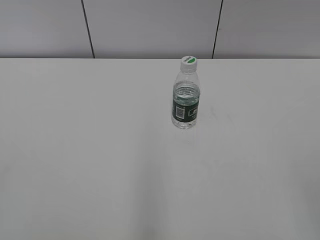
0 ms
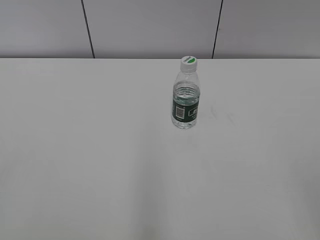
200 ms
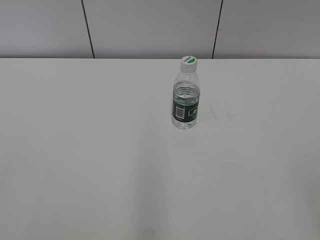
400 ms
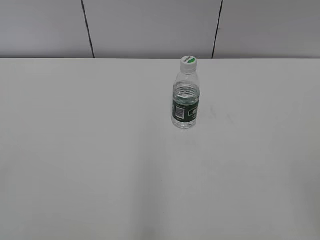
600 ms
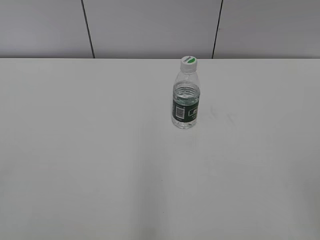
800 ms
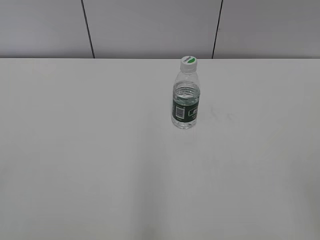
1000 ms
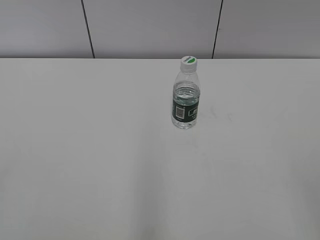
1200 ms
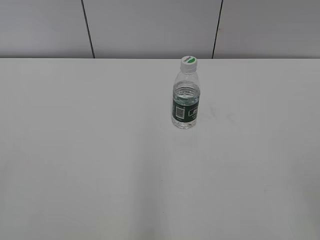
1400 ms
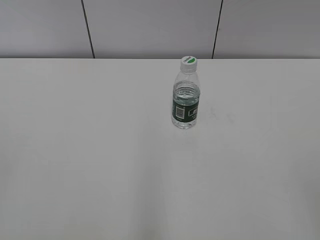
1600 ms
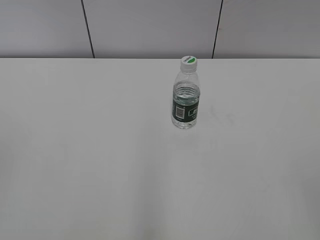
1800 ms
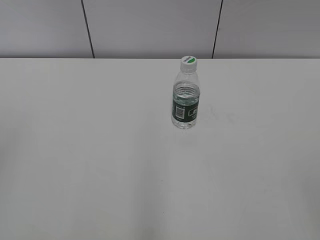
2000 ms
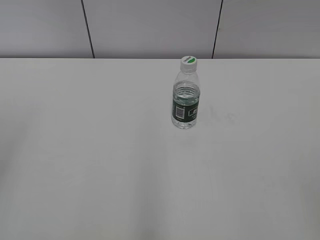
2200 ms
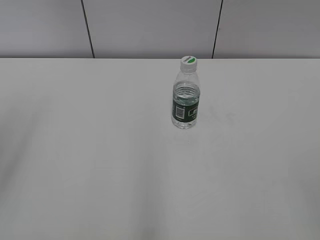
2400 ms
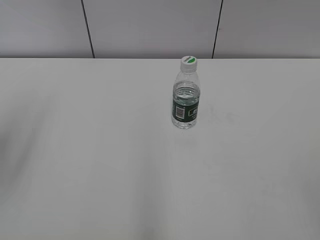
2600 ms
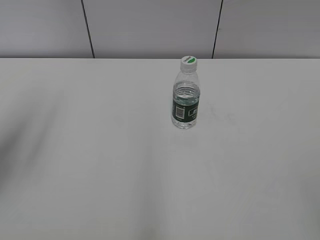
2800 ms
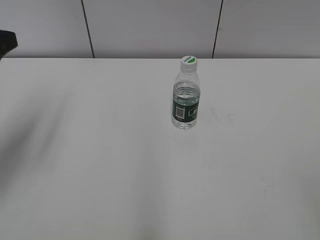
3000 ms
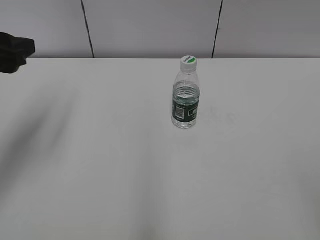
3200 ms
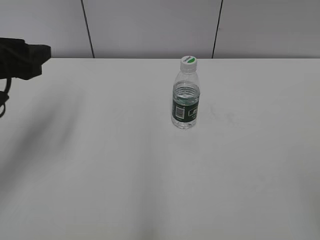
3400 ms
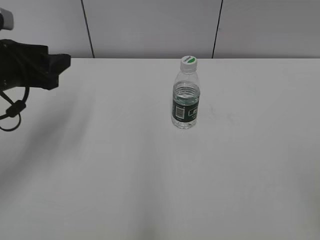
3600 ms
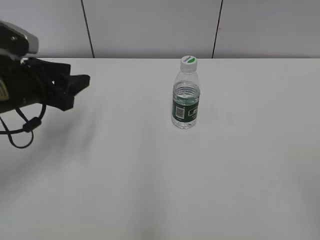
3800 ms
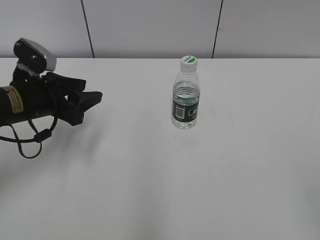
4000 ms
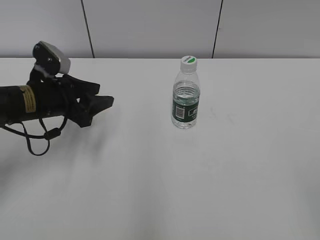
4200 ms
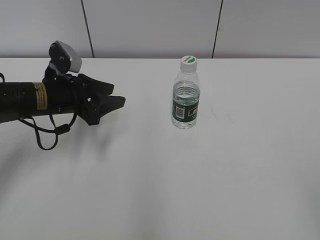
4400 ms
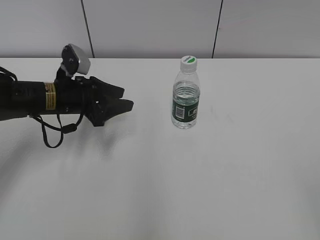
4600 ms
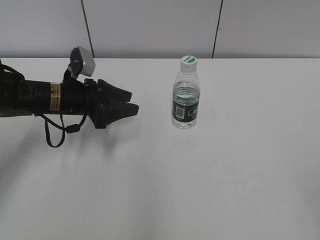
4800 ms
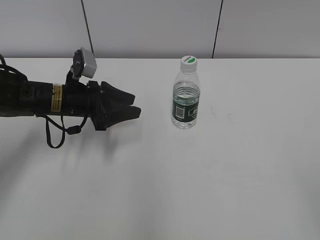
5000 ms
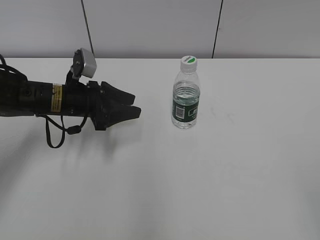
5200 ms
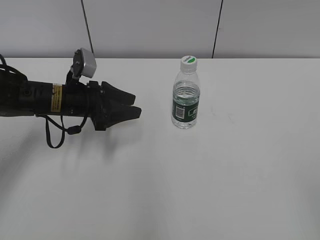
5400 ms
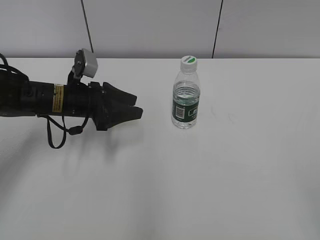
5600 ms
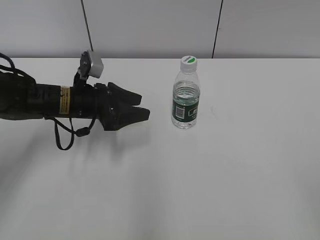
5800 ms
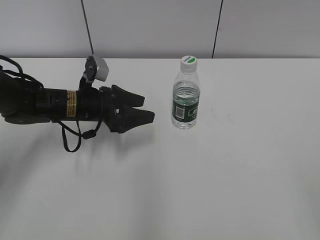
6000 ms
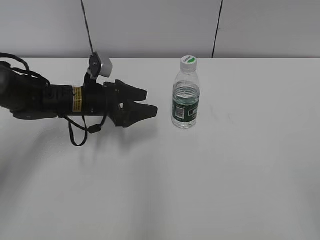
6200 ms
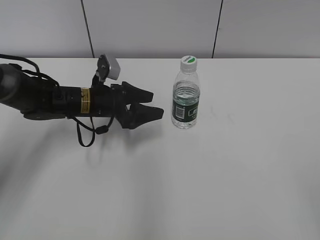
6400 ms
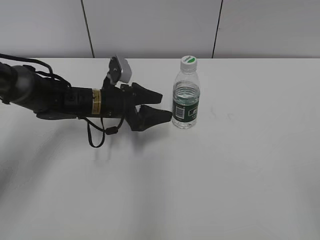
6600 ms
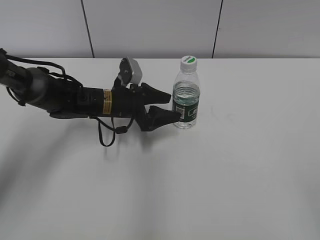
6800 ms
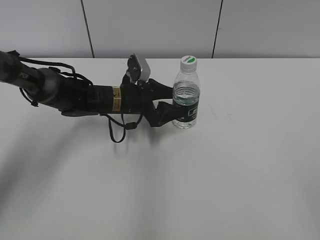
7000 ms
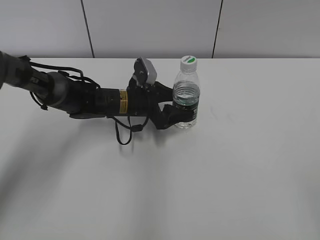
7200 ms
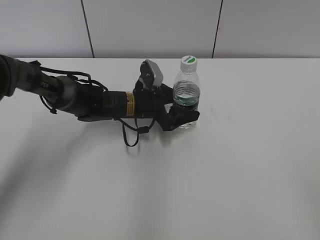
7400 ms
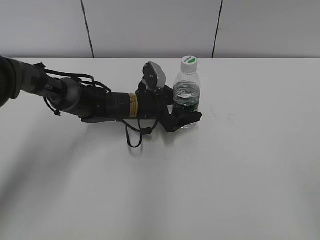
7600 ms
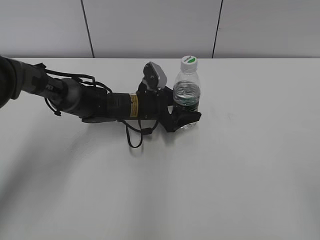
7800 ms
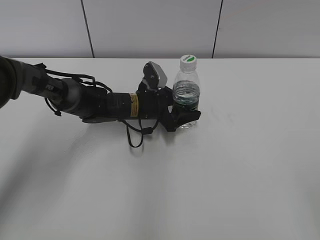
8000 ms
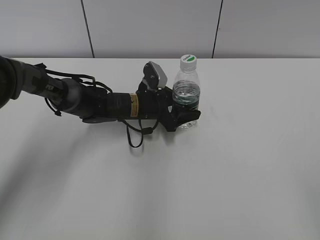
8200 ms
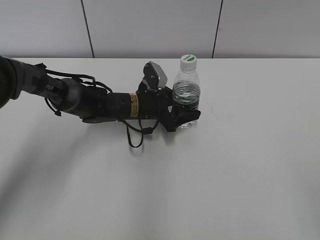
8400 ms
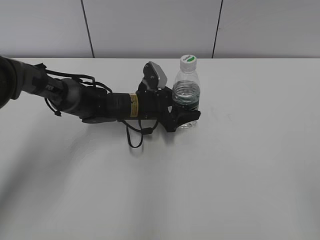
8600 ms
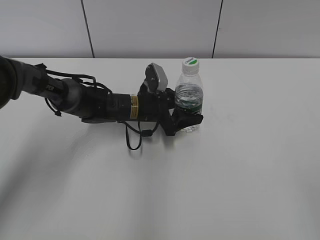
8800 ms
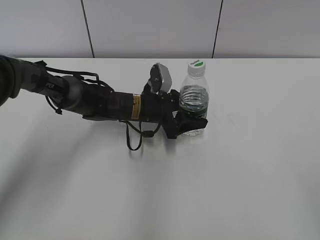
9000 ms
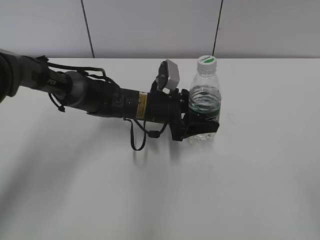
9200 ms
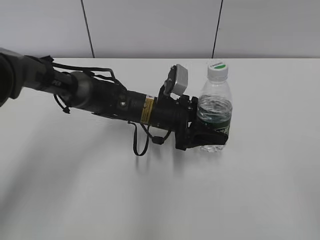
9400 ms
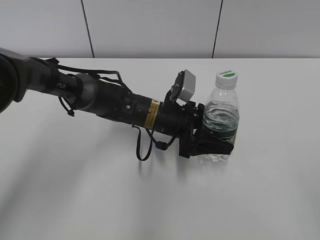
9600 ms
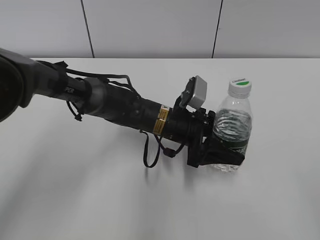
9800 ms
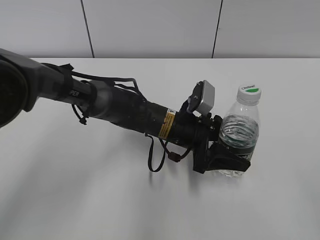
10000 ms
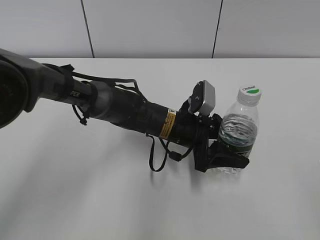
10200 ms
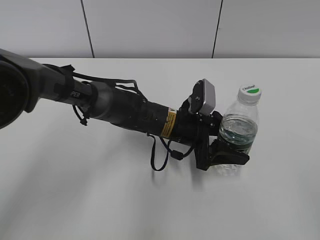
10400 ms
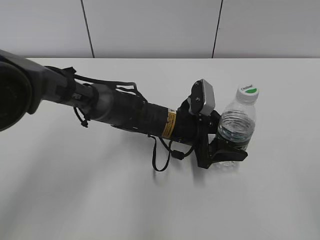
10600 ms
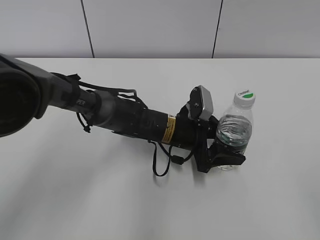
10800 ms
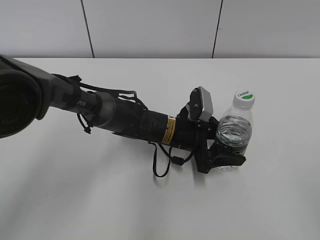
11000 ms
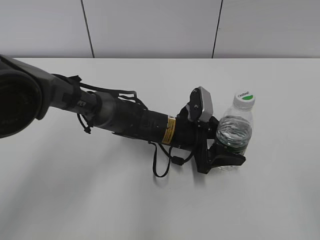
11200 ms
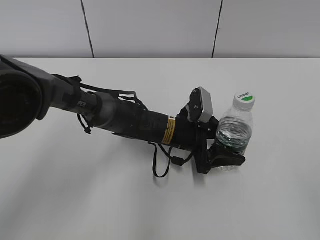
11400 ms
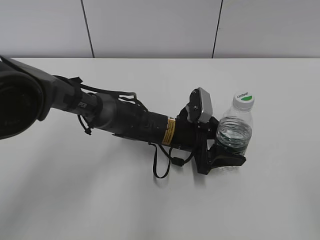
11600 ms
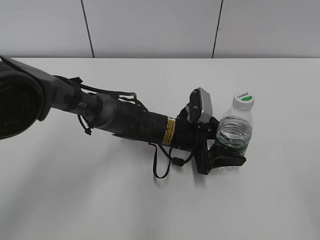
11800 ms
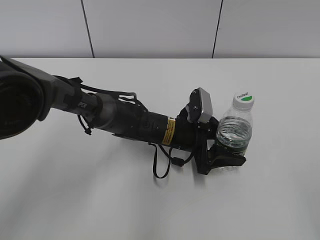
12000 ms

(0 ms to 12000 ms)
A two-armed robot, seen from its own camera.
Step, 0 ms - 8200 ms: Grab the C'estbon with the left hand.
Step, 8600 ms - 11200 ms: Move the C'estbon to the right with the left hand.
1600 ms - 3000 ms: The left gripper travels forward by some 20 cm.
3000 ms - 4400 ms: The left gripper shifts about 20 cm downward, forward and to the right.
4400 ms - 6000 ms: The left gripper changes place by approximately 5 cm, and opens its fingers.
6000 ms - 7600 ms: The left gripper goes some 10 cm to the right.
7600 ms - 9000 ms: The grippers stay close to where they were, moving slightly.
9000 ms - 10400 ms: The left gripper is displaced backward and to the right by some 10 cm.
10400 ms - 12000 ms: The grippers move only a little.

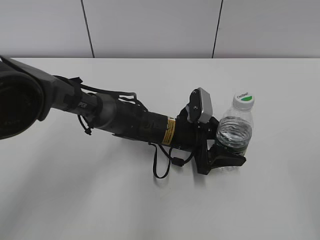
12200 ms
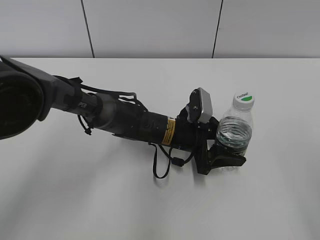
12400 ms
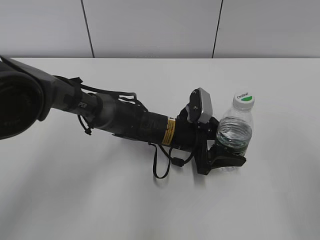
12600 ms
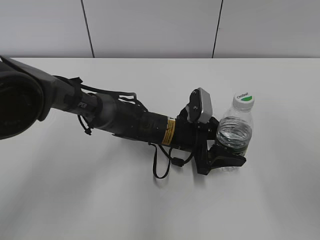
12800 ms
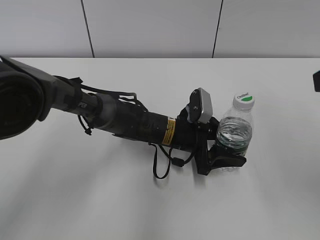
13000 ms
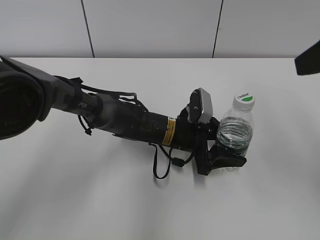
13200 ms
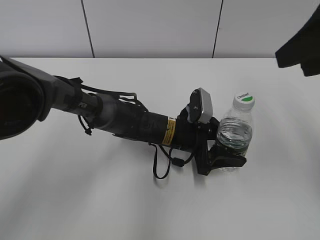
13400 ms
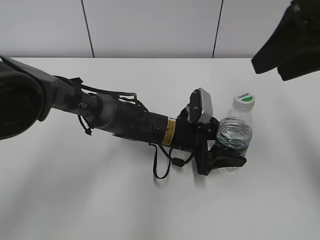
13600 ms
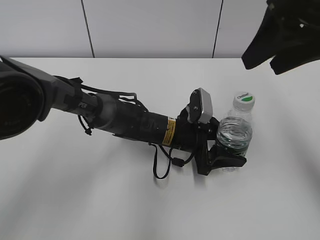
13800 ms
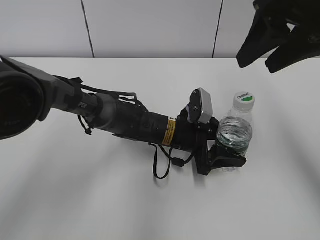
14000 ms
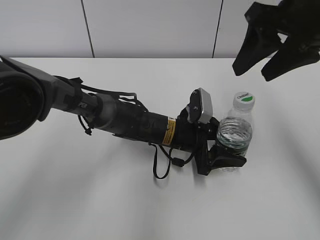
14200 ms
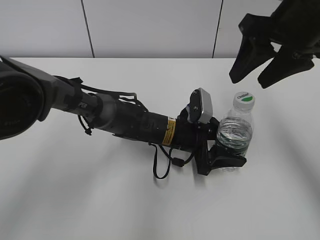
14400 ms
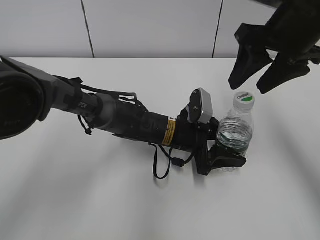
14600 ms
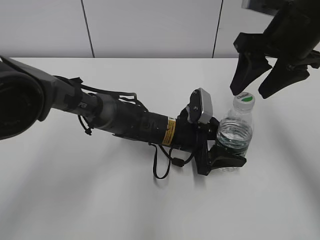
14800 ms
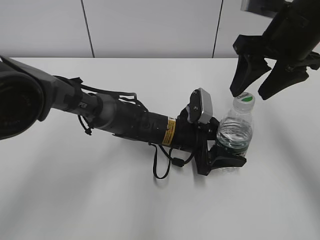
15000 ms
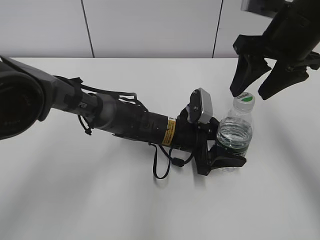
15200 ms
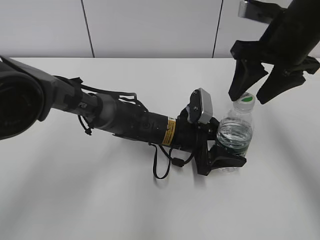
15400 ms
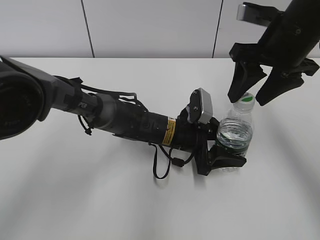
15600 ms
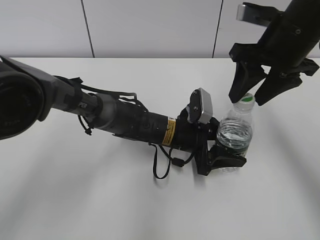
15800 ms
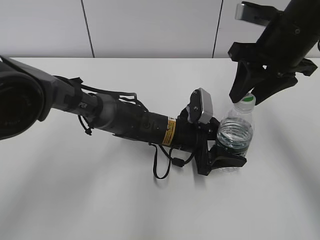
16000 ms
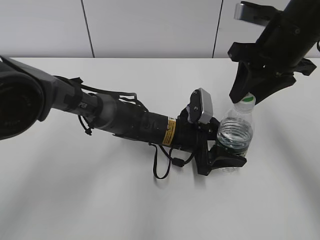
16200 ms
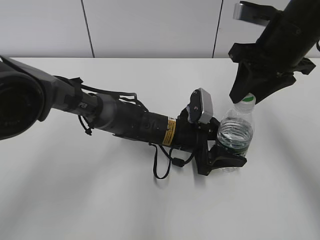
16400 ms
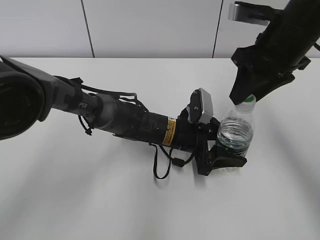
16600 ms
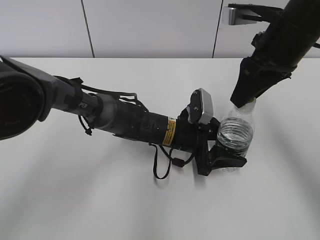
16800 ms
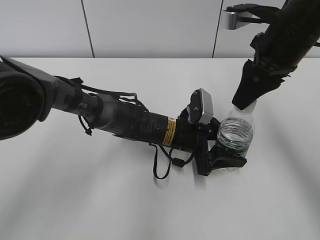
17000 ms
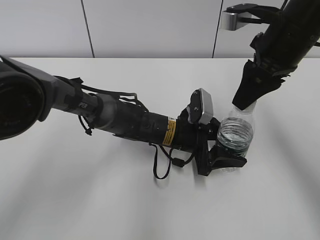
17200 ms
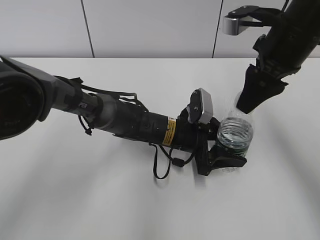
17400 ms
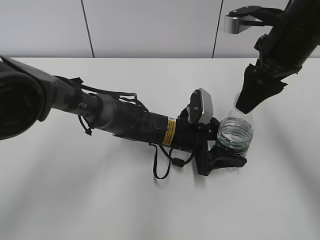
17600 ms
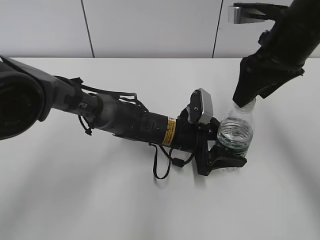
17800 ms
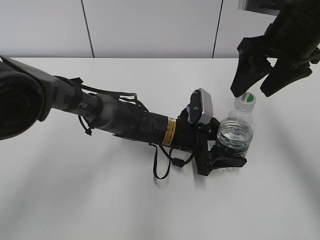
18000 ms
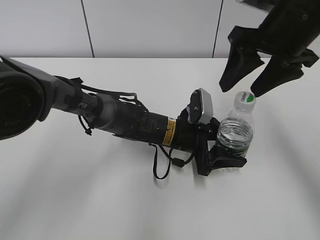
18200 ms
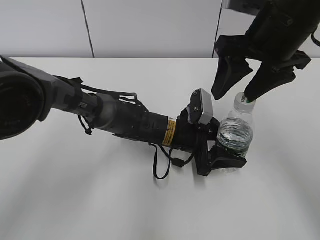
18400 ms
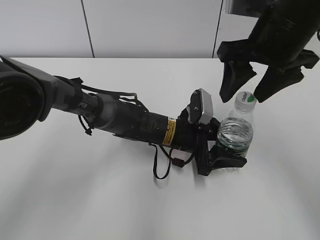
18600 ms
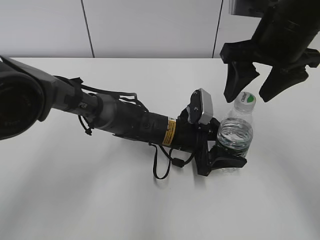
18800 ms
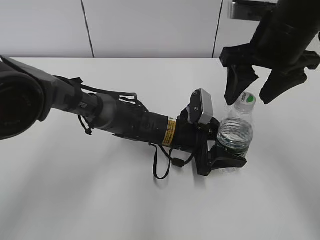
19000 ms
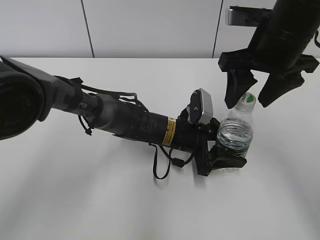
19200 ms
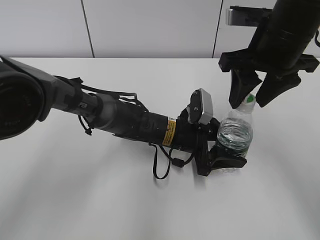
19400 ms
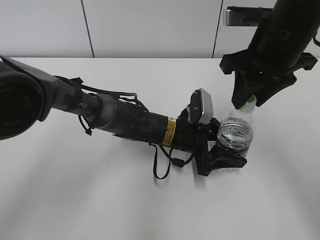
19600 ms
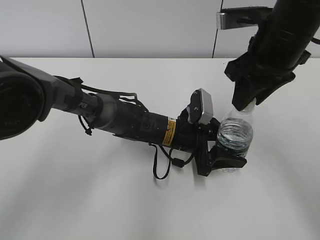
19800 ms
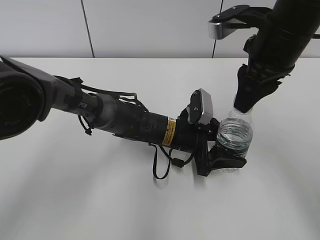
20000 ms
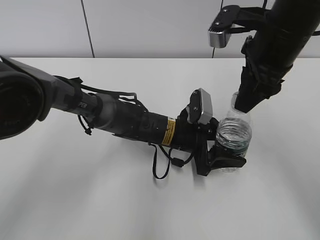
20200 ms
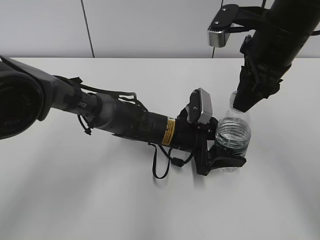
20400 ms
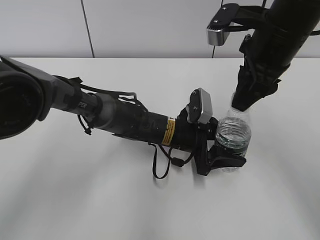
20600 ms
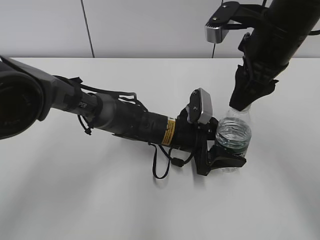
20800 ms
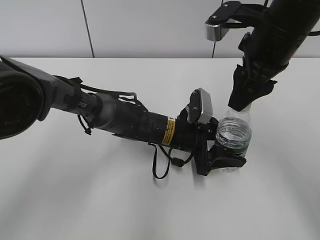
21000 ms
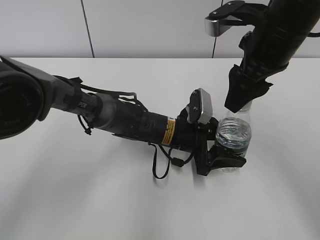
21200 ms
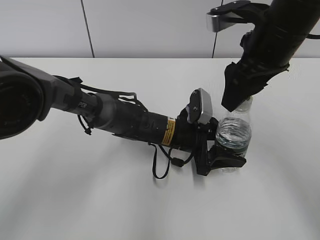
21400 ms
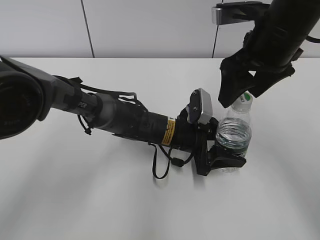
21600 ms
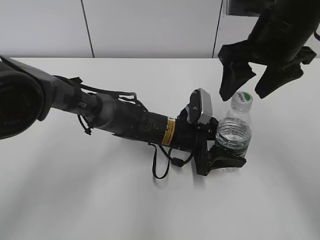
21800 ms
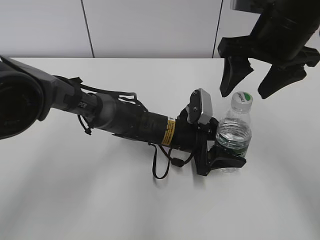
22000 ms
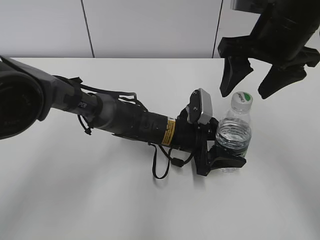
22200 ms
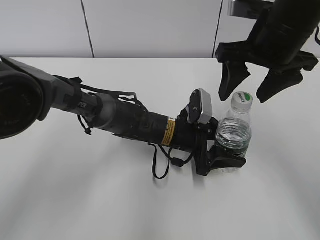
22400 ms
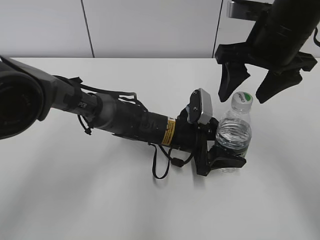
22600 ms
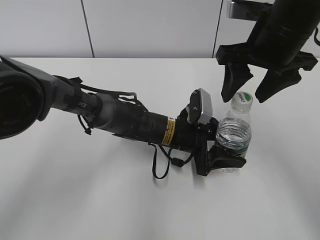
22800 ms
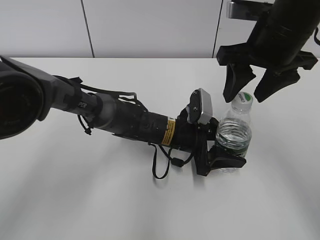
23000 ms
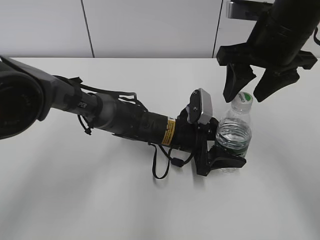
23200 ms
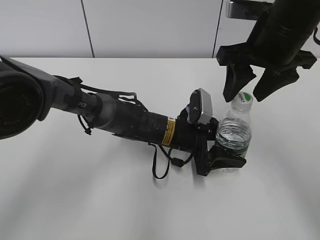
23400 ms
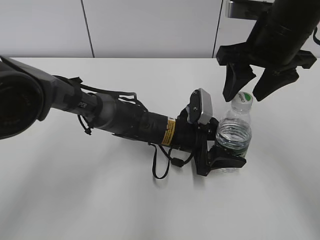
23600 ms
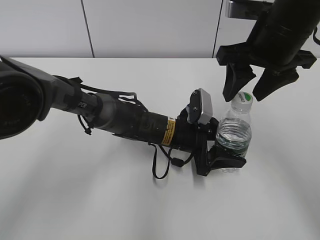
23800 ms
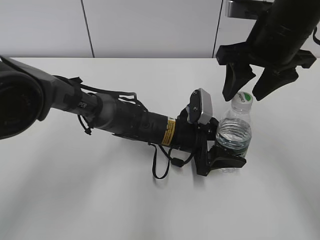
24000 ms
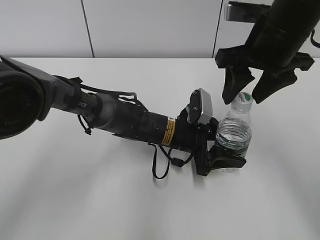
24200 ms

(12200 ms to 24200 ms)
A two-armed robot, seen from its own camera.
12200 ms - 13800 ms: The right gripper moves forward, about 25 cm.
13800 ms - 15200 ms: The right gripper is displaced downward and forward by some 10 cm.
15200 ms - 16600 ms: The right gripper closes its fingers.
16600 ms - 18200 ms: The right gripper opens.
18200 ms - 19800 ms: The right gripper closes.
19800 ms - 21200 ms: The right gripper opens.
22600 ms - 24200 ms: The right gripper closes its fingers.
